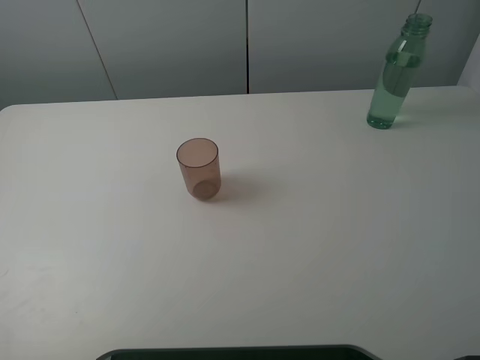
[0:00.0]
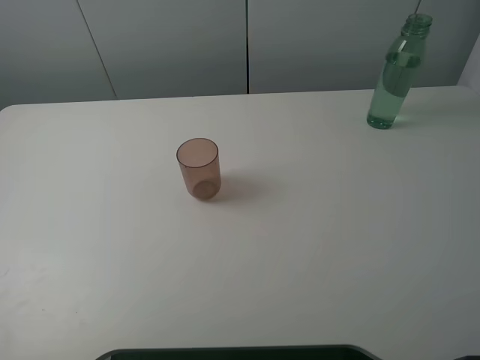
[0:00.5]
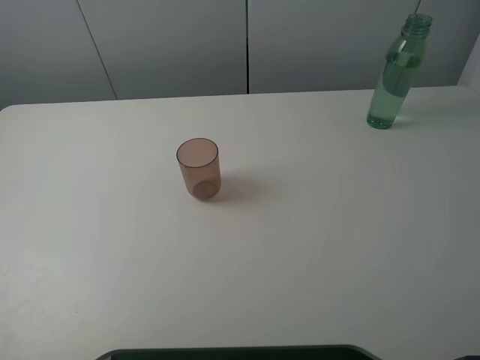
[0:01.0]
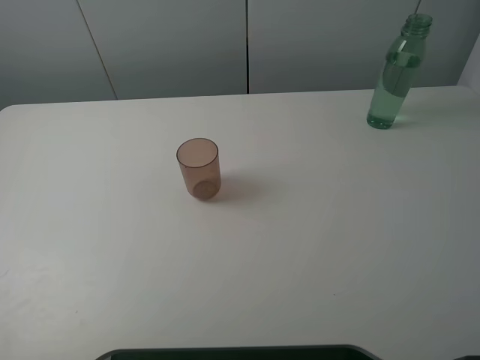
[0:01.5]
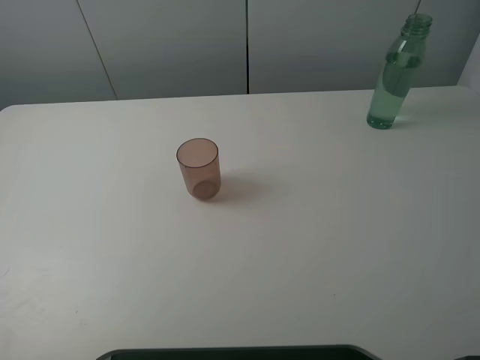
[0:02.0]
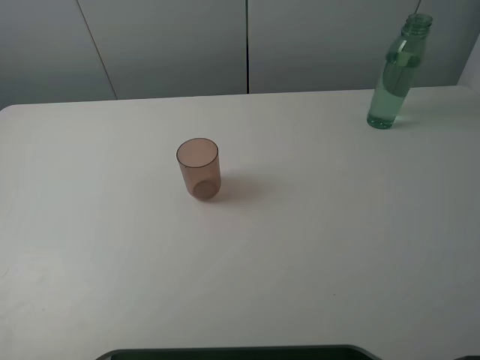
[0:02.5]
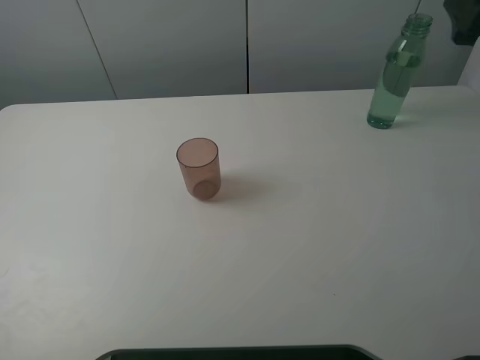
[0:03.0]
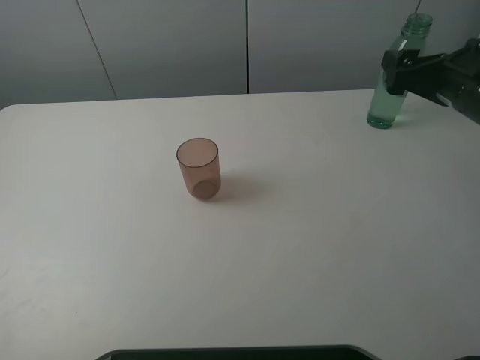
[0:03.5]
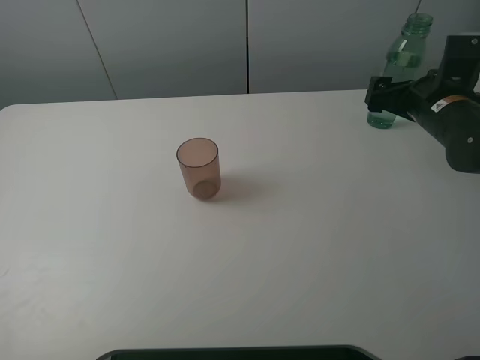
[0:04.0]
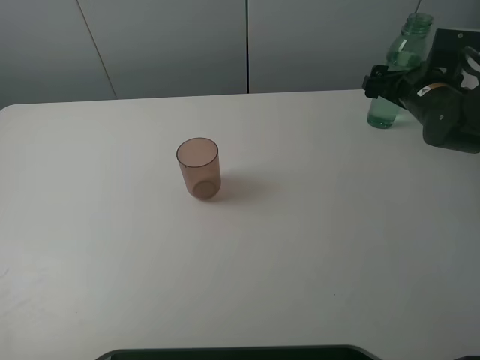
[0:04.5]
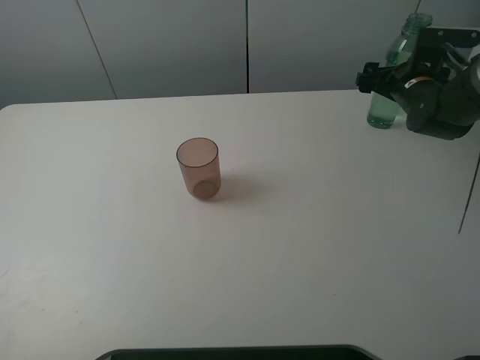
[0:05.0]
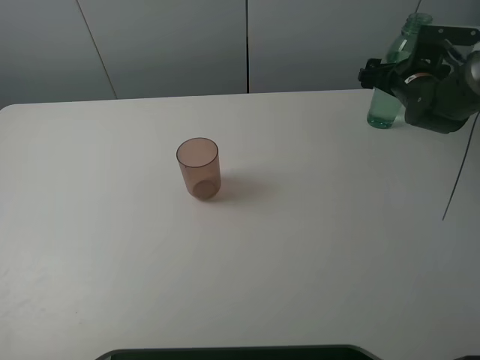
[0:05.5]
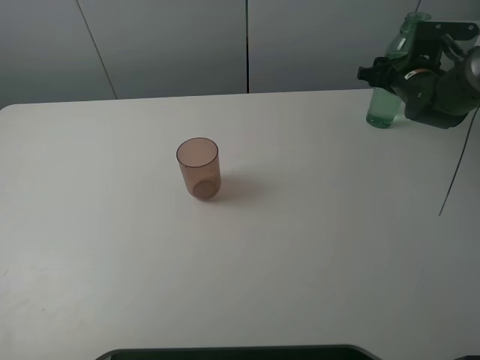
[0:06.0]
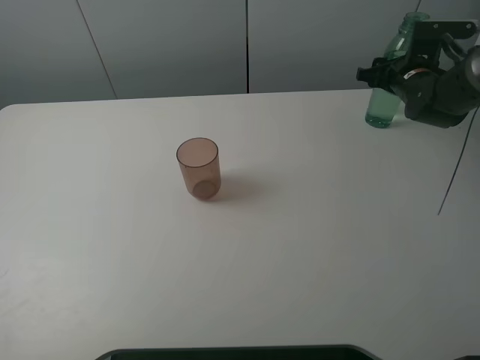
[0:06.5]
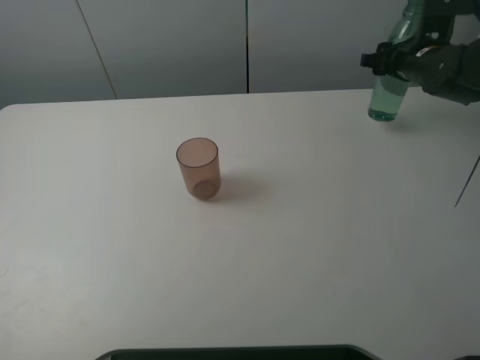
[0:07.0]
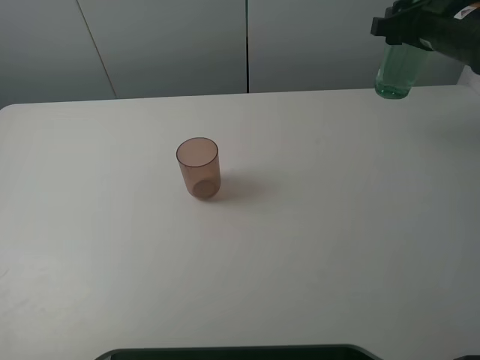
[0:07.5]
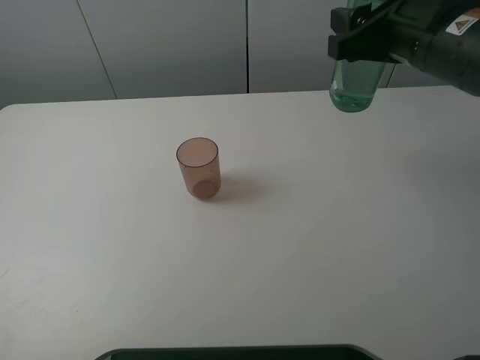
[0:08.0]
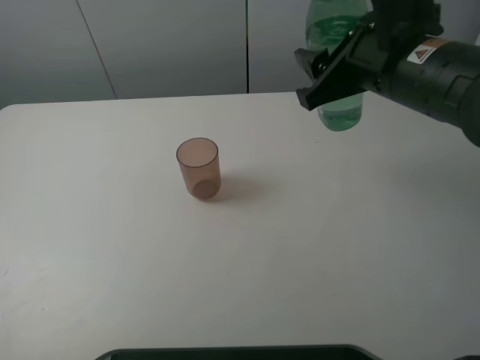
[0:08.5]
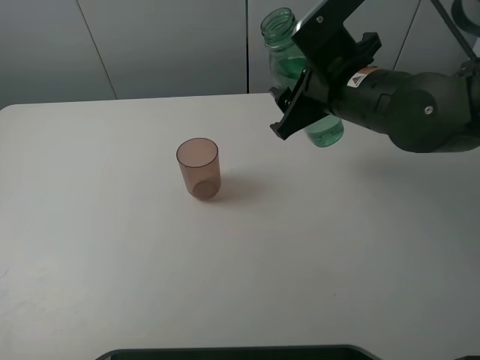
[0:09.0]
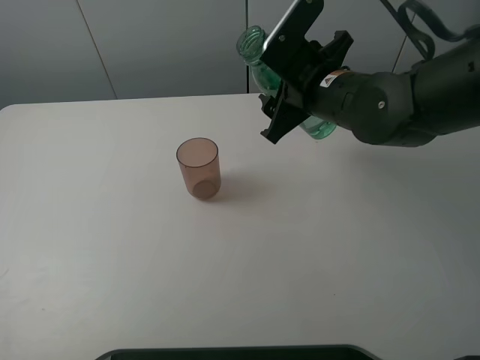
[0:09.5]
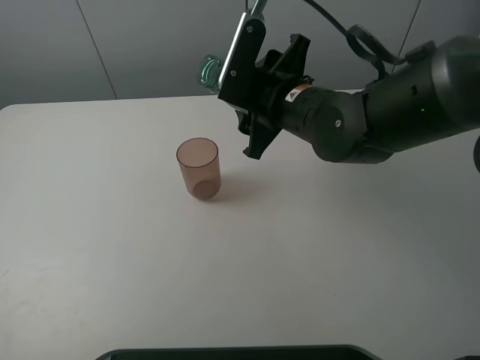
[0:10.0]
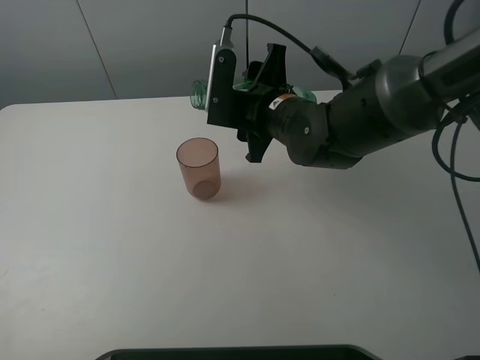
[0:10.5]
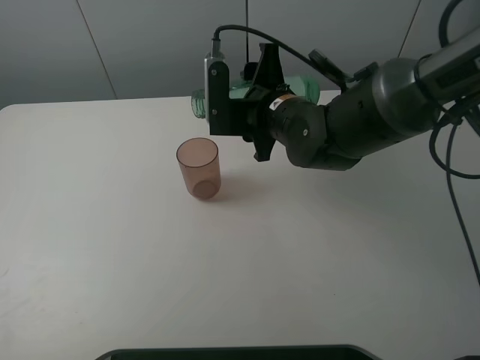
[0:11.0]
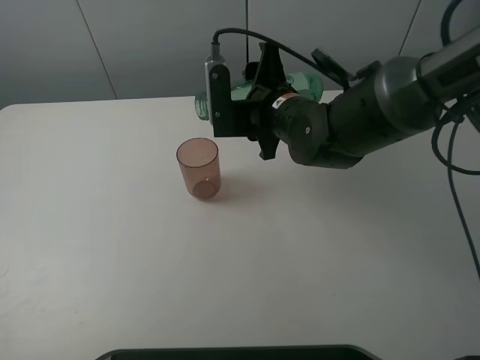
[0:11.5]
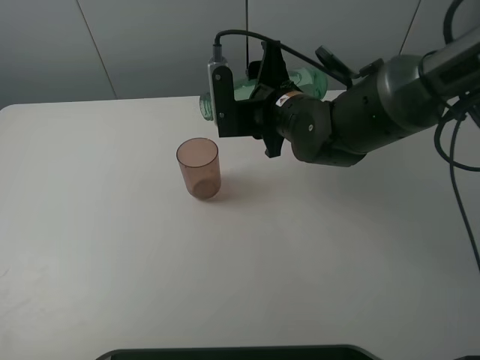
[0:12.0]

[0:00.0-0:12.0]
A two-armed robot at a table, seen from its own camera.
Task of the whole recording: pick up the bottle filled with water and pour it into the pink cup.
Step, 0:00.0 to 0:06.0: Grasp the green bottle with the right gripper.
0:02.0 to 0:04.0: The right gripper heads forward and downward, covering roughly 35 cm.
0:04.0 to 0:06.0: The right gripper goes about 10 cm forward, and closes.
0:06.0 to 0:08.0: The right gripper moves backward, upward and to the left, some 25 cm.
0:08.0 to 0:10.0: The right gripper shifts roughly 15 cm to the left and downward.

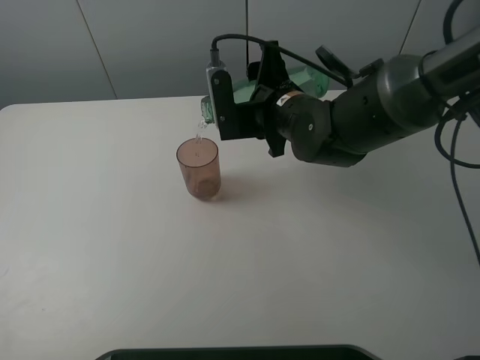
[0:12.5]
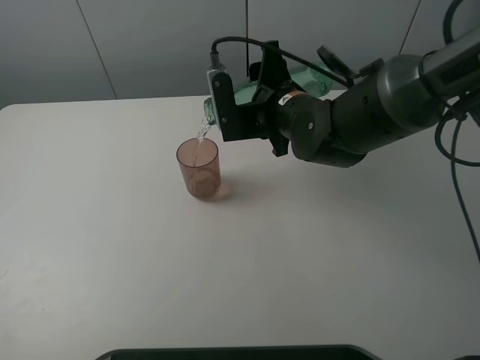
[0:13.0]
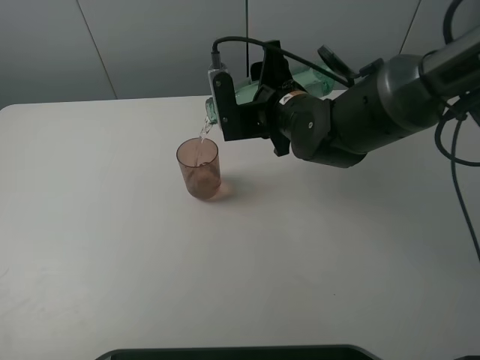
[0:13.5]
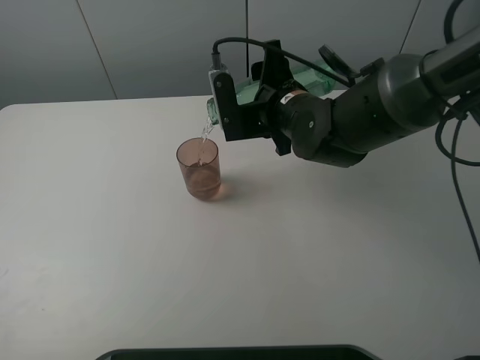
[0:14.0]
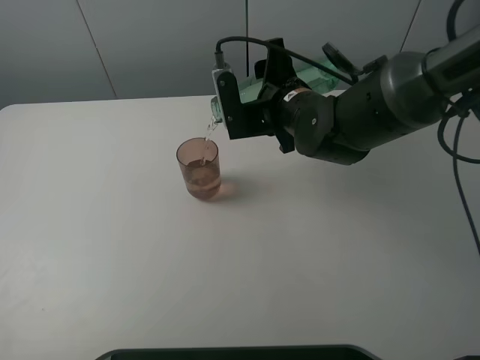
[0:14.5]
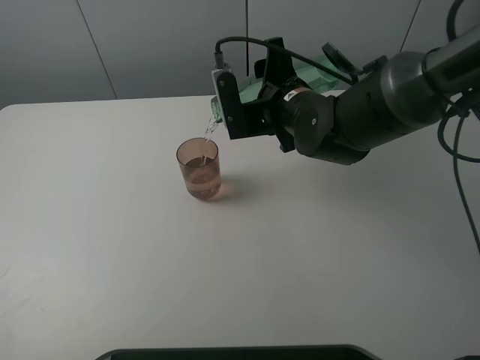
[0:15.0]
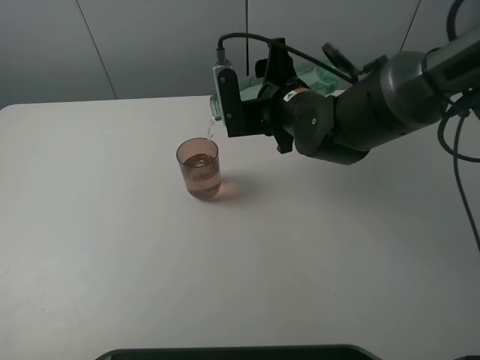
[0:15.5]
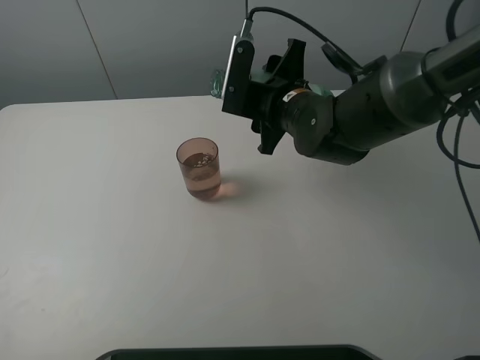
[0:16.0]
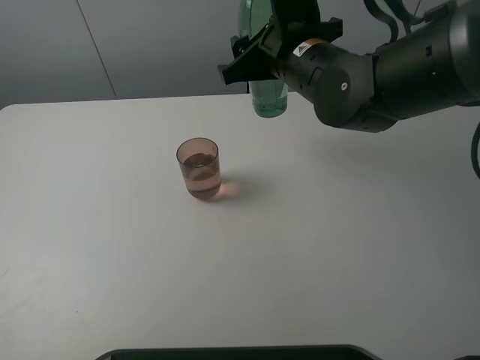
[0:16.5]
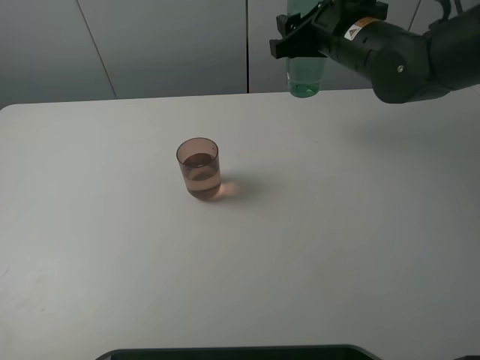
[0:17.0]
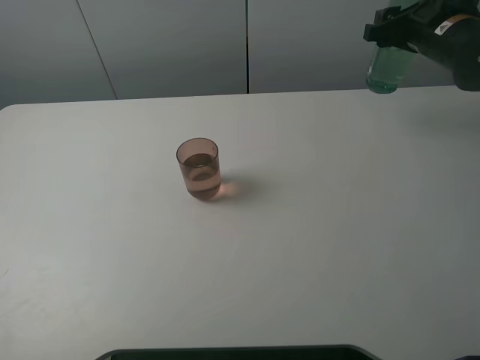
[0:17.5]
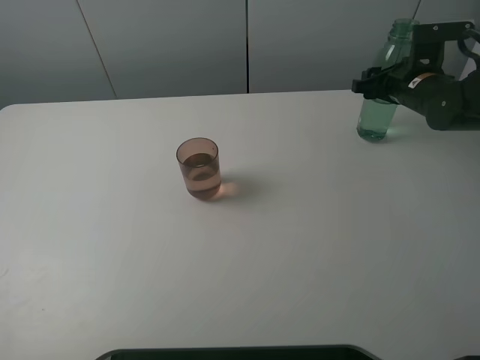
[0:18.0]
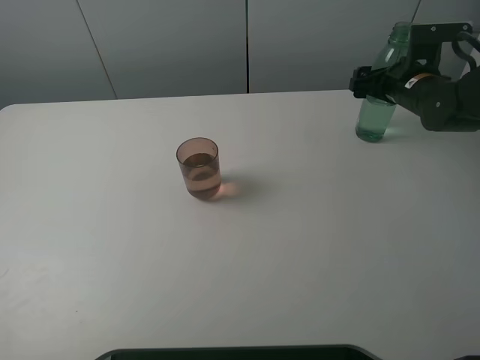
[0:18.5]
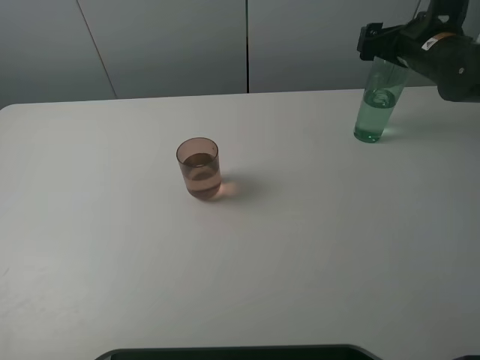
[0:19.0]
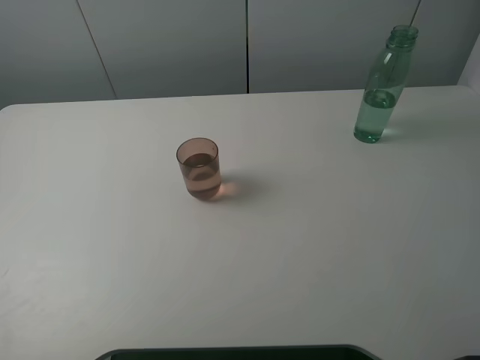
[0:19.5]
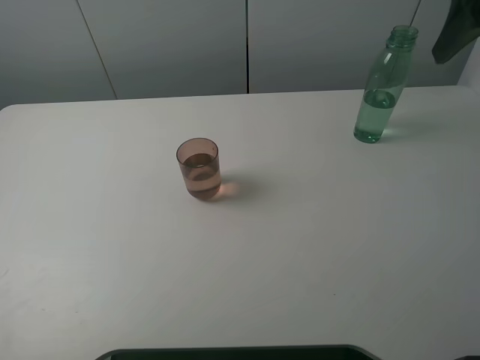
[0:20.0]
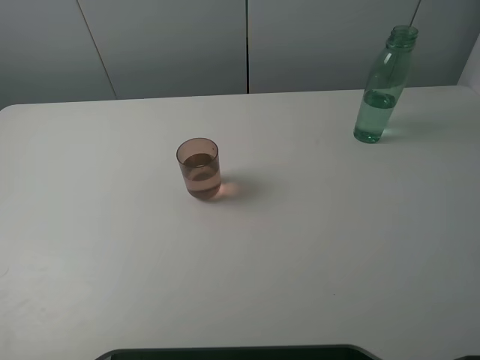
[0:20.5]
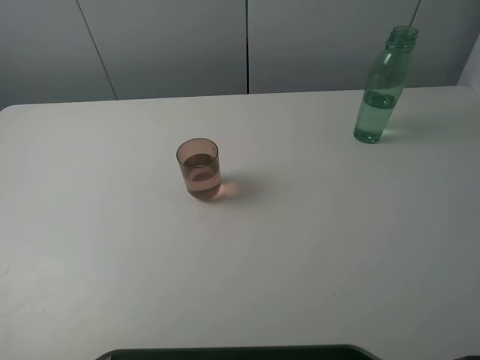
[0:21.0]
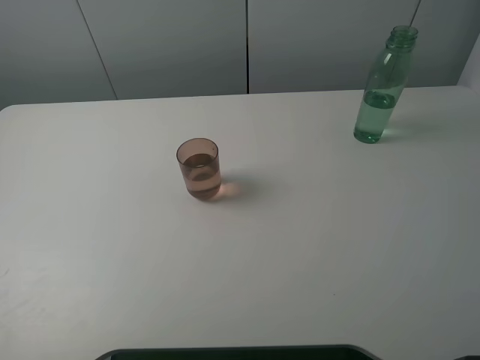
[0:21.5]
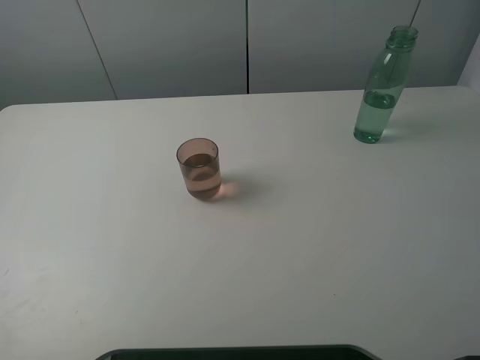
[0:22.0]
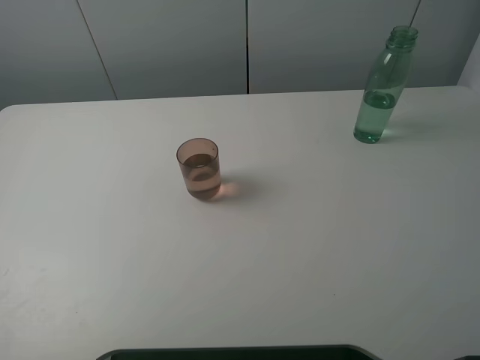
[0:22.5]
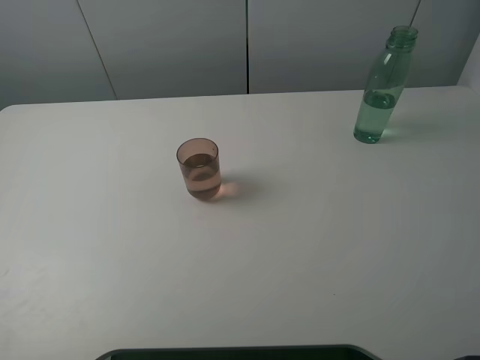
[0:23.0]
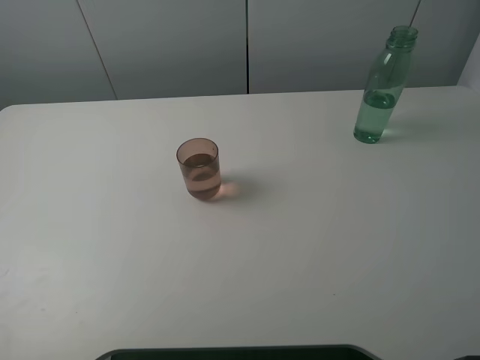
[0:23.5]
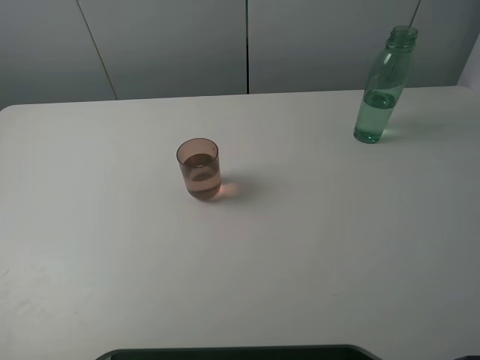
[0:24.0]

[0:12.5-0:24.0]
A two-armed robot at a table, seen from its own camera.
Task of the whole recording: pick up the bottle filled with water and pour it into the pink cup.
Step, 0:12.5 to 0:16.0: Pour water from green bottle to pink cup with the right gripper.
Step, 0:16.5 to 0:18.5: Place the green bottle with the right gripper.
0:12.5 to 0:14.5: Both grippers stay put.
0:14.5 to 0:16.5: The right gripper heads upward, covering approximately 5 cm.
0:16.5 to 0:18.5: The right gripper is displaced to the right, downward and forward by about 25 cm, and opens up.
0:18.5 to 0:20.0: The right gripper moves upward and backward, some 25 cm.
0:20.0 to 0:22.0: The right gripper travels backward by roughly 25 cm.
0:22.0 to 0:24.0: Both grippers stay put.
